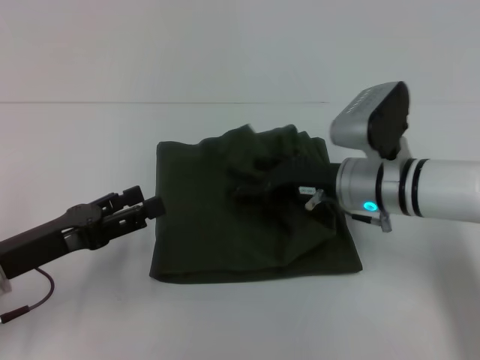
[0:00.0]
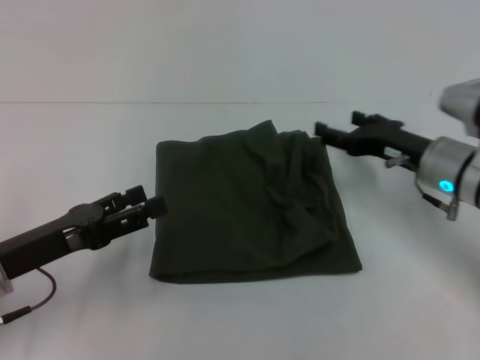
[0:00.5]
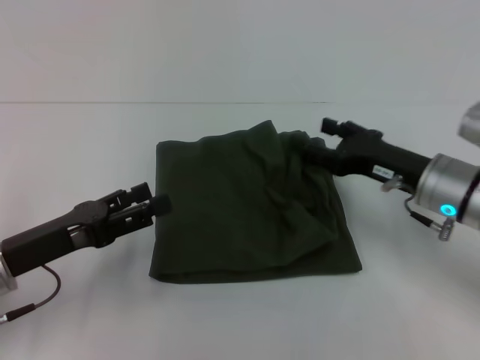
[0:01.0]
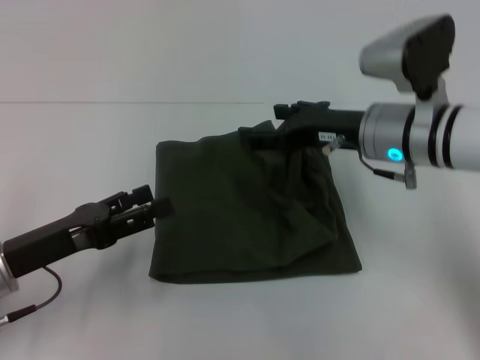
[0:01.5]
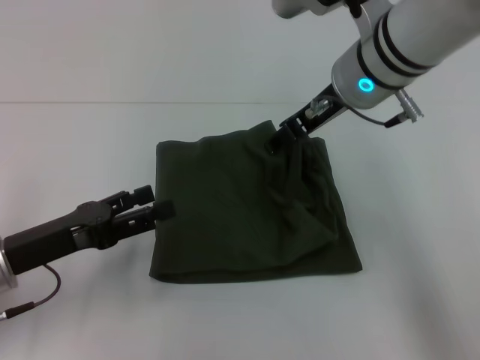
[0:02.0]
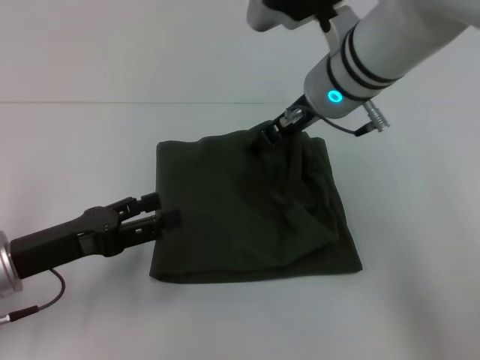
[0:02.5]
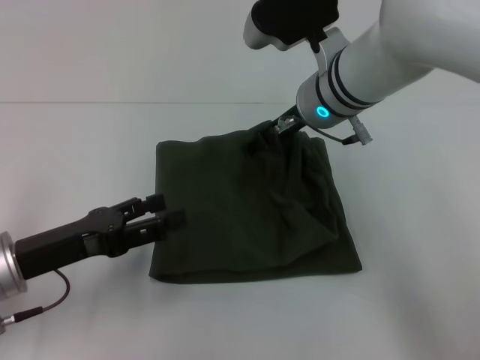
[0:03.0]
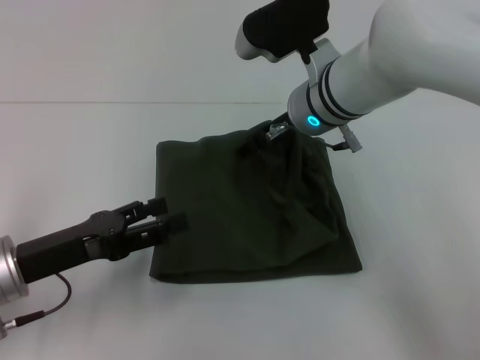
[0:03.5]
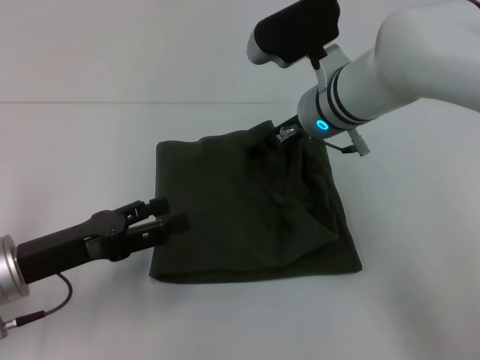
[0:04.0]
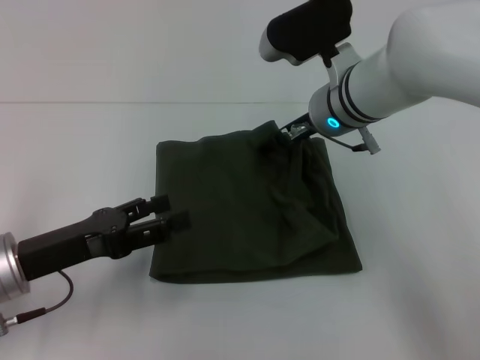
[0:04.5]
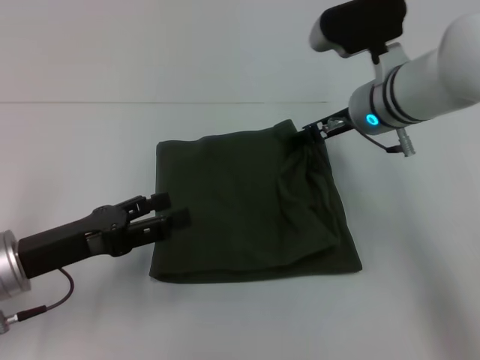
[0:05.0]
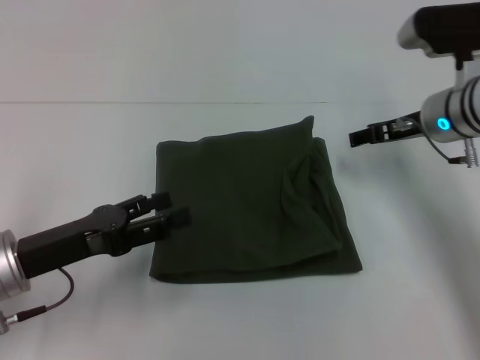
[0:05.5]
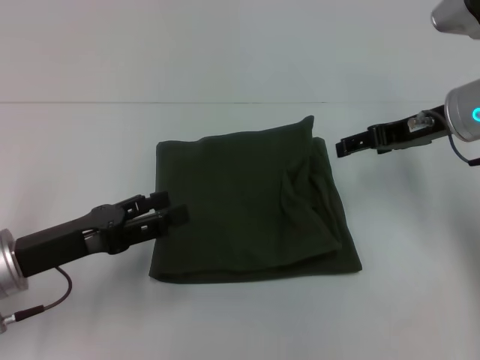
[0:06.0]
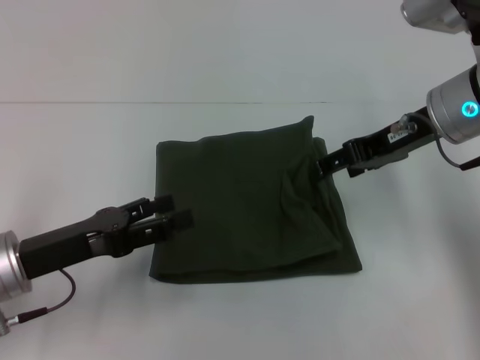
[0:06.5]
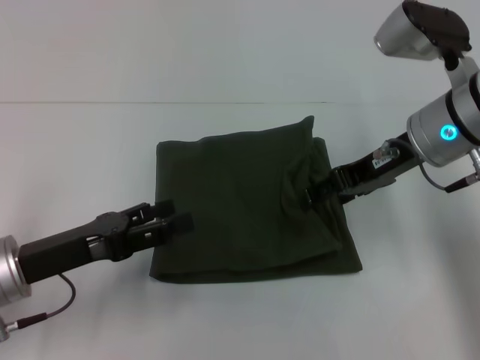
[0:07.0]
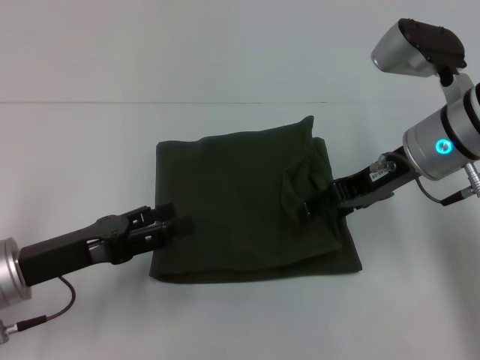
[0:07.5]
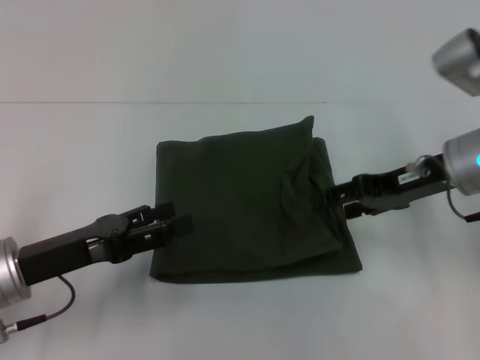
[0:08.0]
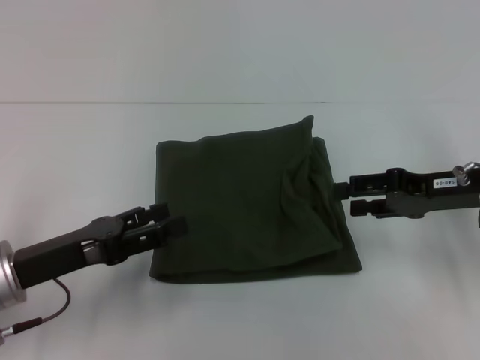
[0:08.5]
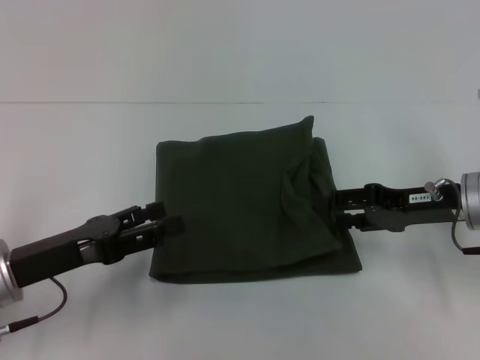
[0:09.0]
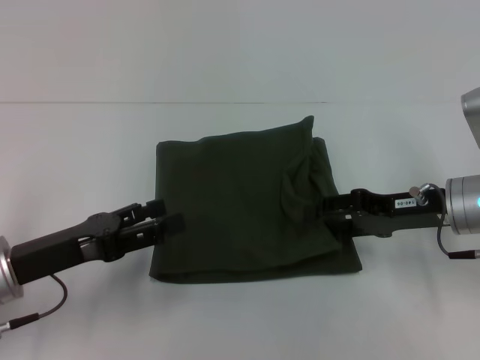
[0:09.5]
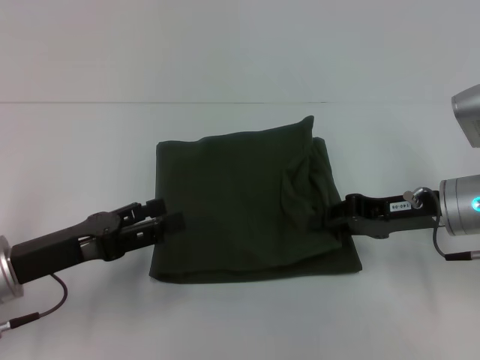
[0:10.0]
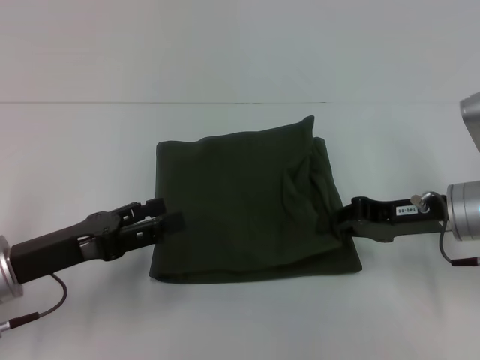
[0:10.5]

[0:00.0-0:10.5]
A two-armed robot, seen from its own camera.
0:00.0 to 0:02.0: The right gripper is displaced upward by roughly 15 cm.
0:02.0 to 0:04.0: The right gripper heads downward, covering approximately 5 cm.
0:04.0 to 0:06.5: The right gripper travels to the right by approximately 10 cm.
0:06.5 to 0:08.5: The right gripper shifts some 10 cm downward and to the right.
0:08.5 to 0:10.5: The right gripper closes up.

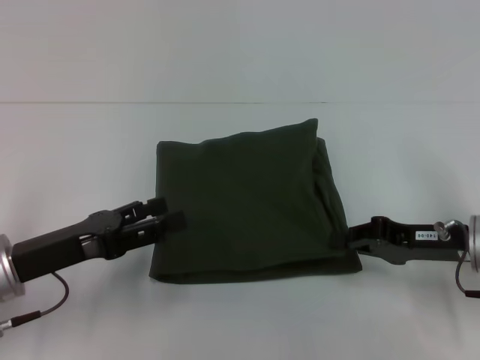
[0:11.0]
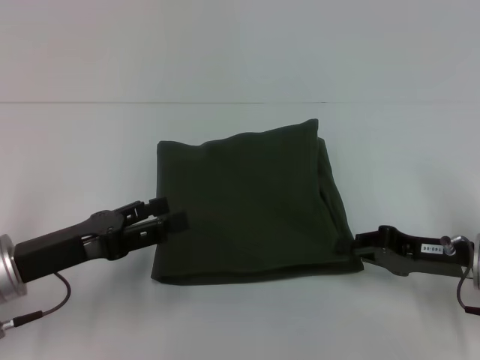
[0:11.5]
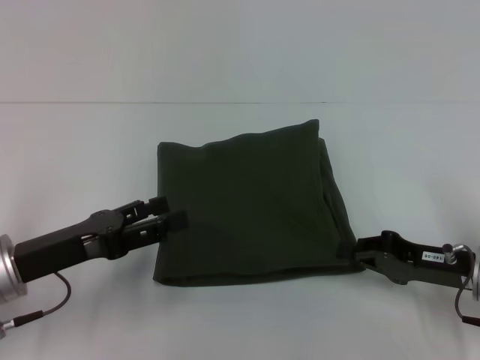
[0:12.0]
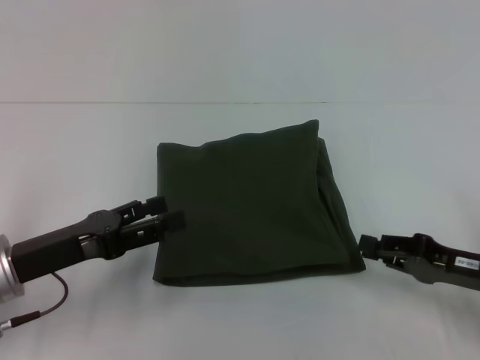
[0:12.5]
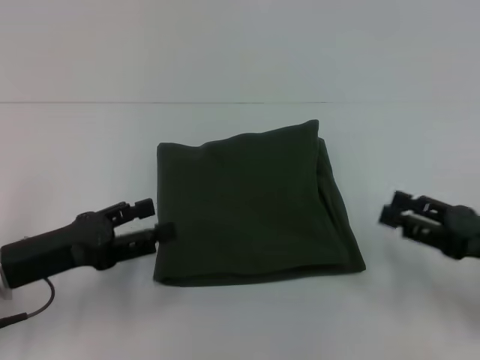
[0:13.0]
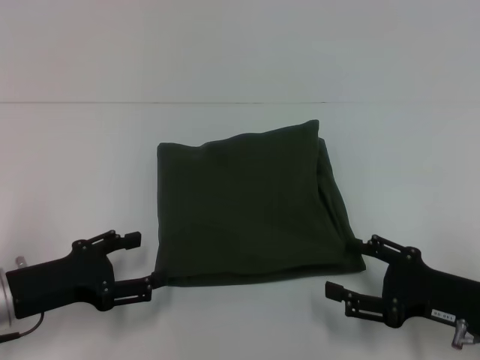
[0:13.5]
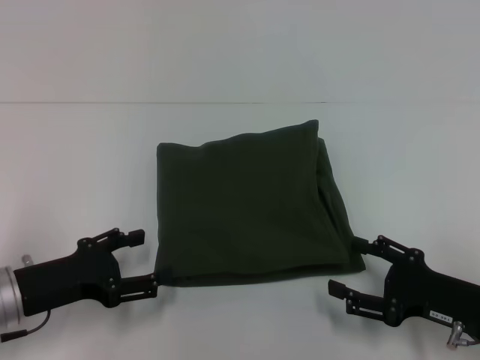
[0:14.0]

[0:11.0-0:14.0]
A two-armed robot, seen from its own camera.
0:11.0 to 0:12.5: The right gripper moves some 5 cm.
0:12.5 to 0:14.0: The right gripper opens its fingers.
